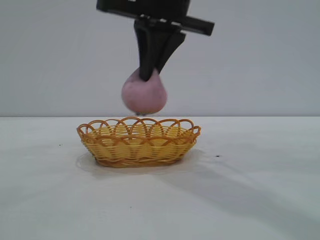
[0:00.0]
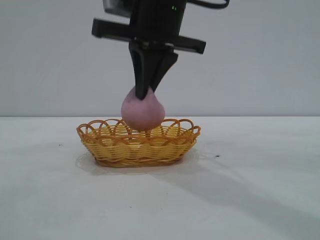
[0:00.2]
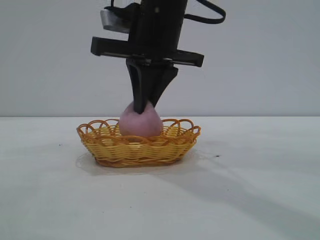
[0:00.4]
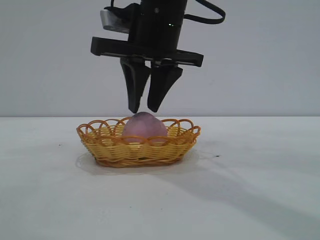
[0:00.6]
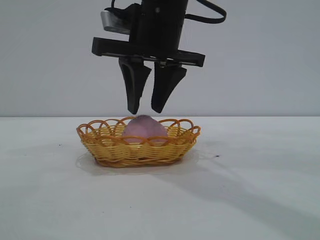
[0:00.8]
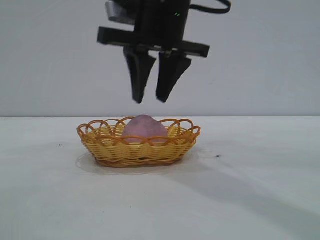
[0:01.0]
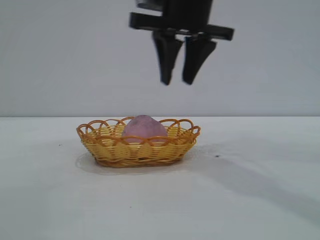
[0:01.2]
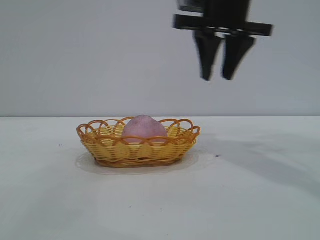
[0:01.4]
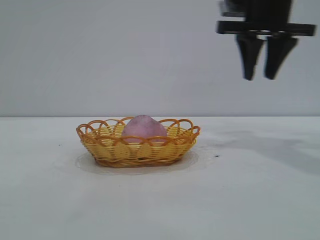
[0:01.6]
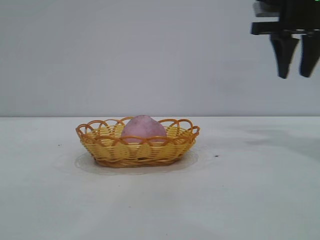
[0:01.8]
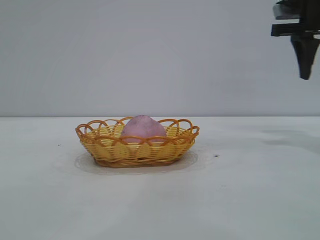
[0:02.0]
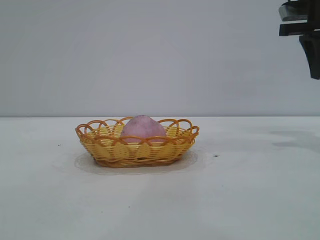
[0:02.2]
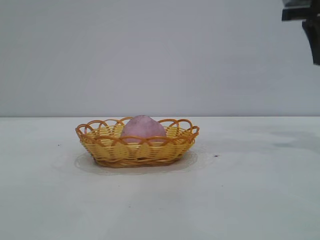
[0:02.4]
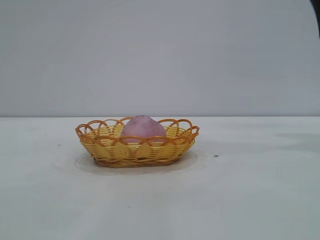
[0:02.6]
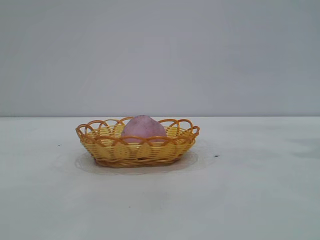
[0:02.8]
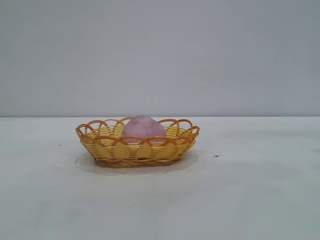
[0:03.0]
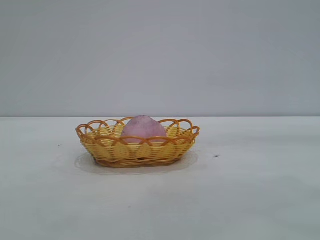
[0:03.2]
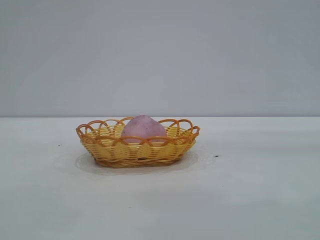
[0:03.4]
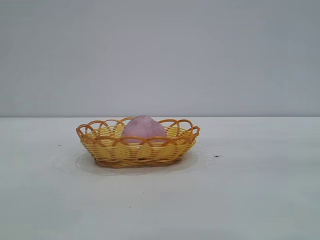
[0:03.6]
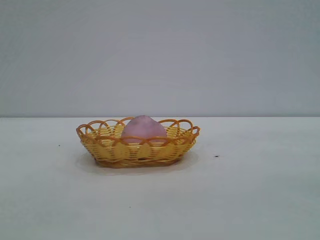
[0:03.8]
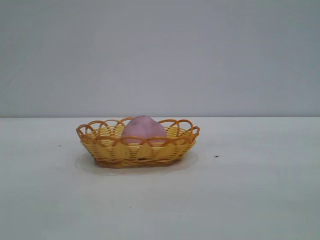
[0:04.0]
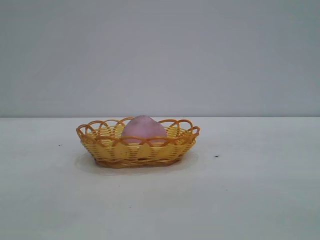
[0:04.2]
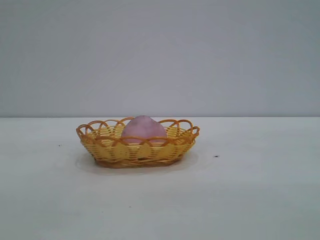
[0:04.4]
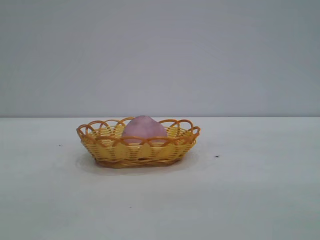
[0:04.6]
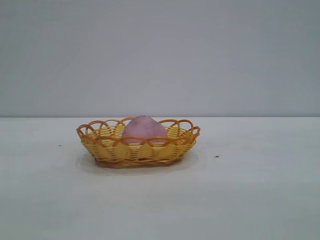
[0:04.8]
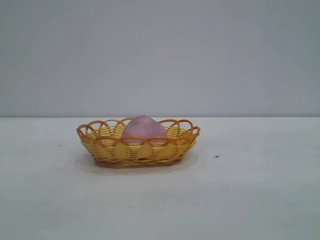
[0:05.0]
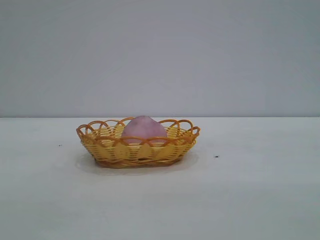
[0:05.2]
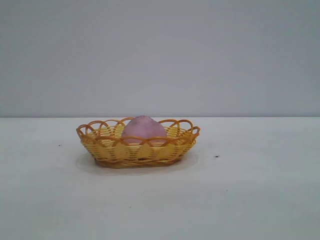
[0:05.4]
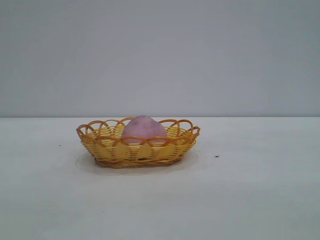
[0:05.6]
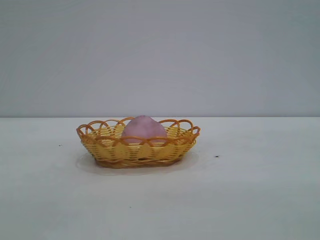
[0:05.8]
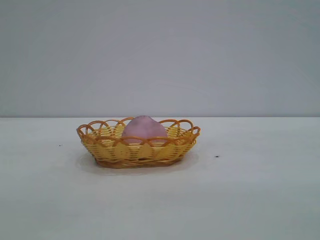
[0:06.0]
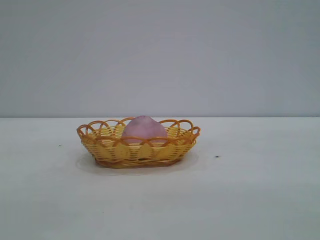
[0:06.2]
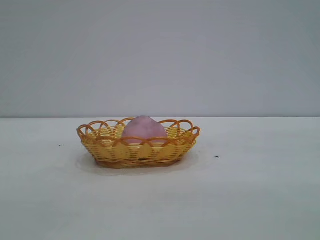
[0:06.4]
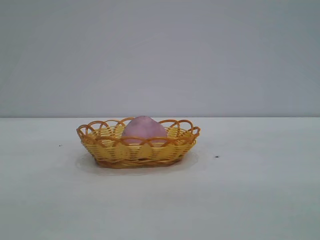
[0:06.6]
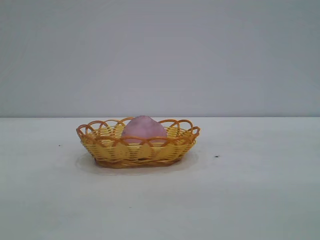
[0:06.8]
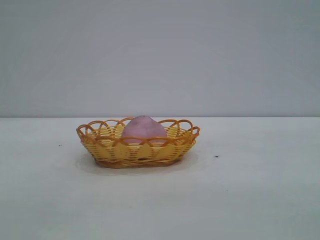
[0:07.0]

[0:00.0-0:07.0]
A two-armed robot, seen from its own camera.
Task of the whole recording: pick up the peach and put it into the basket.
Step, 0:00.0 to 0:01.2: place the peach into the basket.
